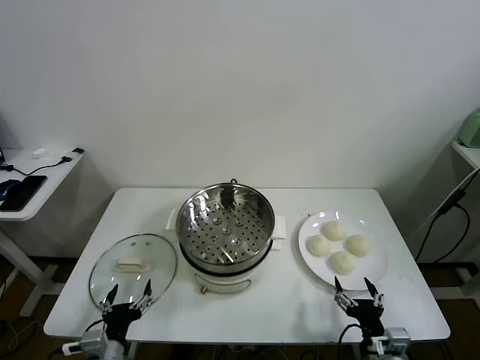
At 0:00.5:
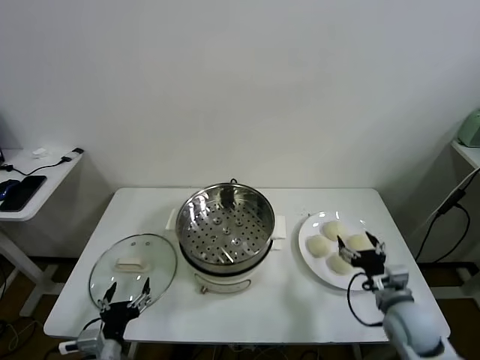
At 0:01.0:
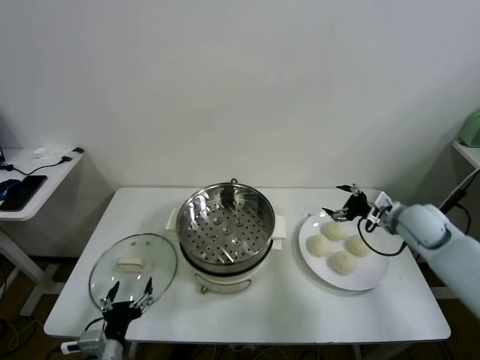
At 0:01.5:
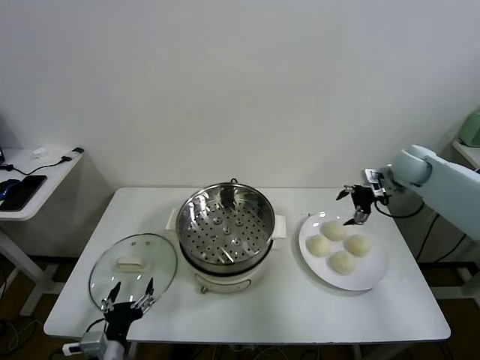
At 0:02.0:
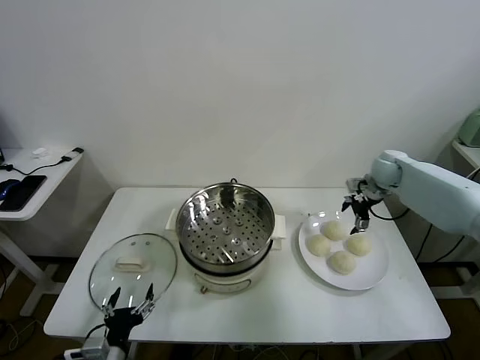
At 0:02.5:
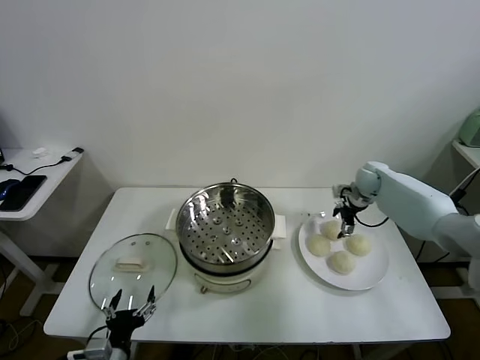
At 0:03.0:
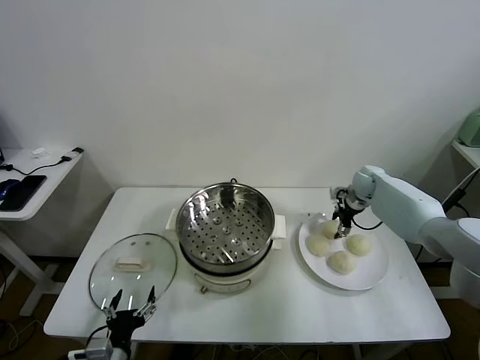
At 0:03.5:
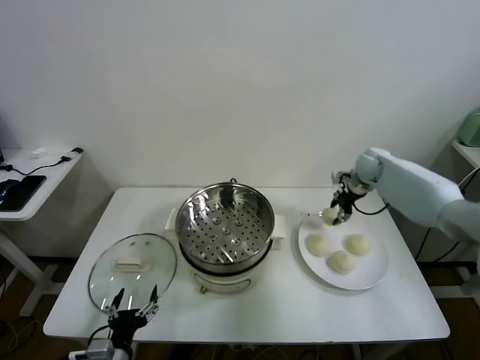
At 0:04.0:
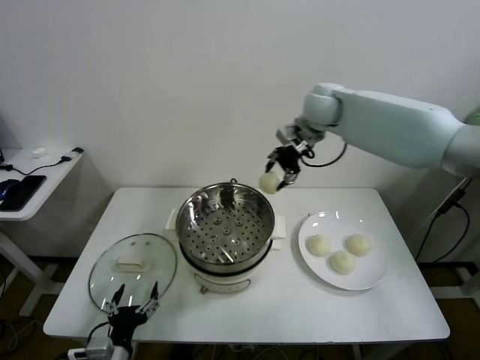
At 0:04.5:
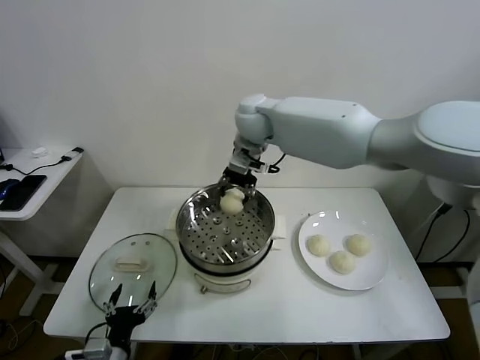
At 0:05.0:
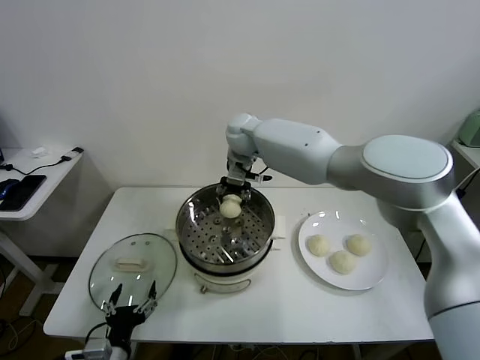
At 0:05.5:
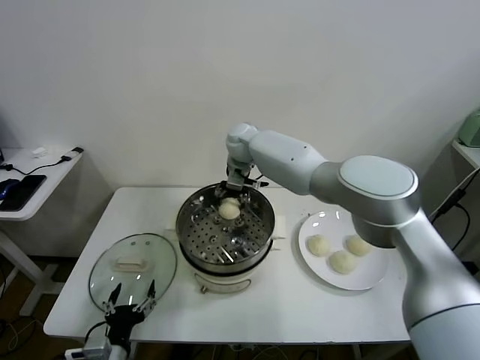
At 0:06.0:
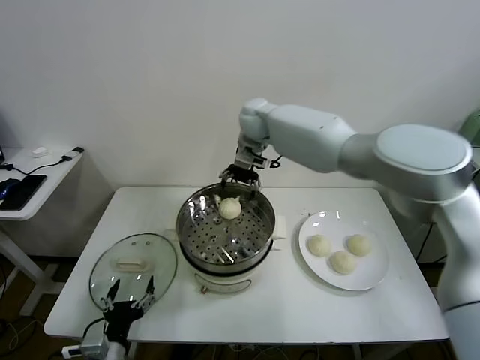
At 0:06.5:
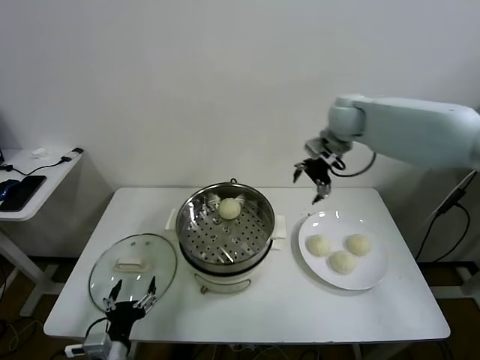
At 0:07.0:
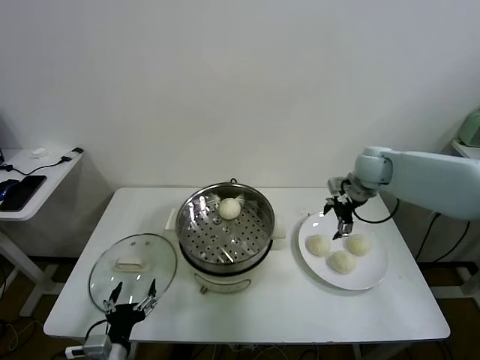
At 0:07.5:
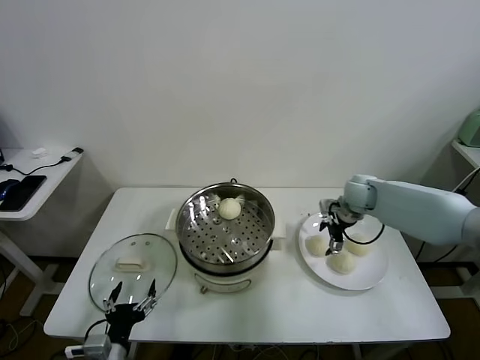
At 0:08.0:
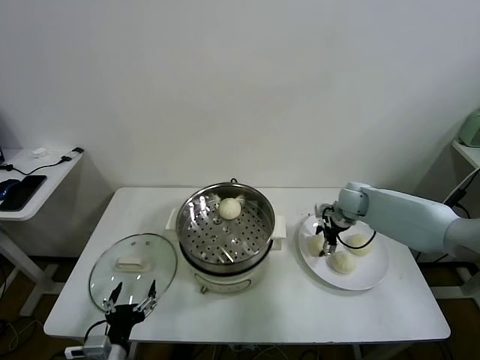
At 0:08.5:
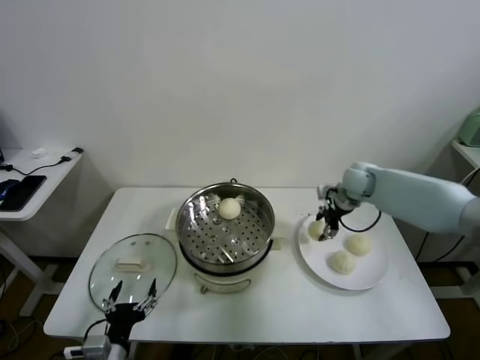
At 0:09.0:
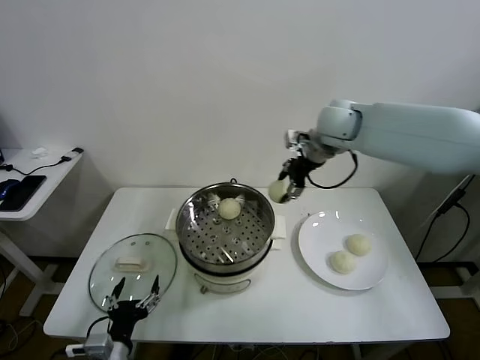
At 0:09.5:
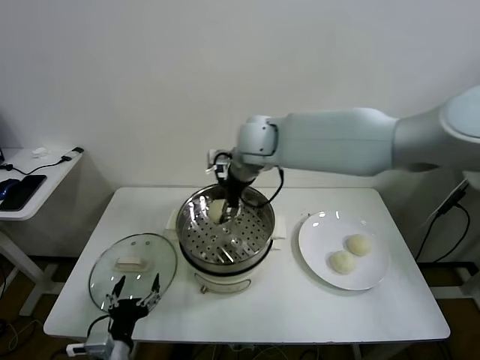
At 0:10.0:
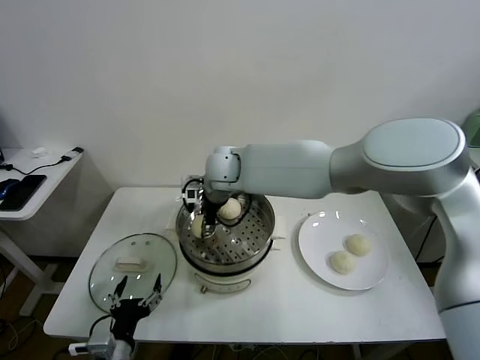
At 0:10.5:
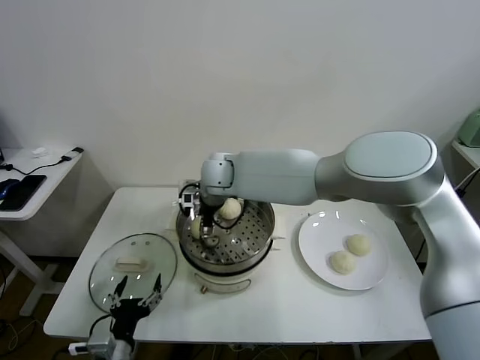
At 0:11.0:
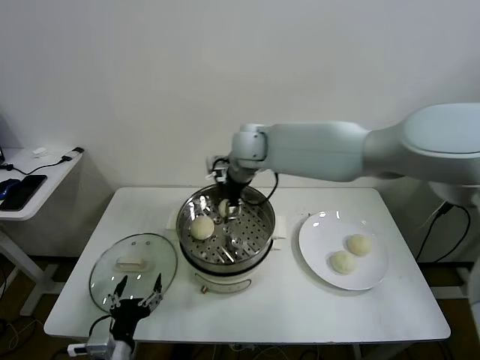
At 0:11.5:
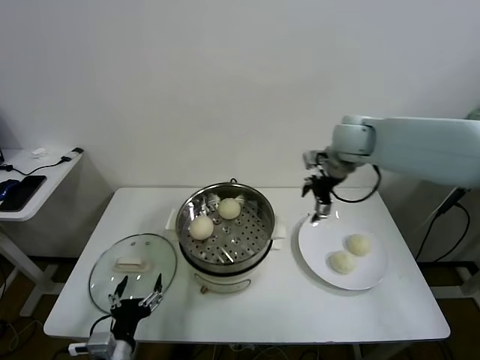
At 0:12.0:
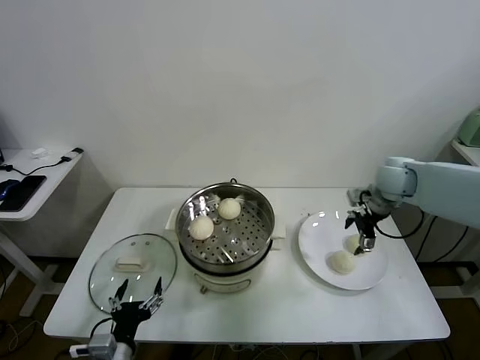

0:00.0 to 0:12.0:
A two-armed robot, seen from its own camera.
Task of the whole recording: take steamed baozi put them in steamer.
Step, 0:00.0 to 0:02.5: Grasp the baozi in the plate with right gripper.
Step, 0:03.0 to 0:05.5: Place the baozi on the steamer with right gripper.
Step, 0:06.0 to 0:08.0: Grasp the baozi in the plate with right gripper.
Step, 0:08.5 to 0:10.5: Place the baozi on the steamer with right gripper.
0:02.0 to 0:04.0: The right gripper shifts about 30 cm to the left and upward, and closes.
0:04.0 to 0:06.0: The right gripper shifts some 5 cm to the left, and opens up.
0:06.0 to 0:08.0: The right gripper is displaced to the right and downward by about 35 cm.
0:08.0 to 0:10.0: The right gripper moves to the left and upward, some 40 cm.
0:10.0 to 0:12.0: The right gripper moves to the right, some 40 cm, and opens up.

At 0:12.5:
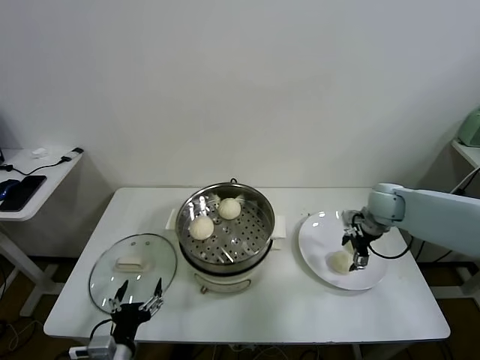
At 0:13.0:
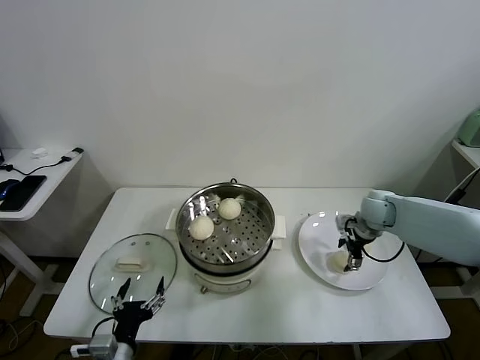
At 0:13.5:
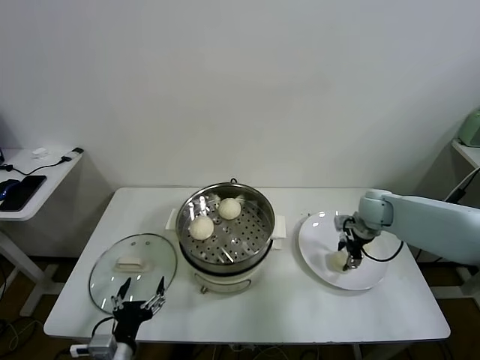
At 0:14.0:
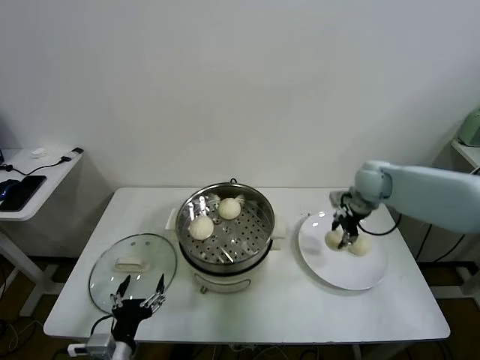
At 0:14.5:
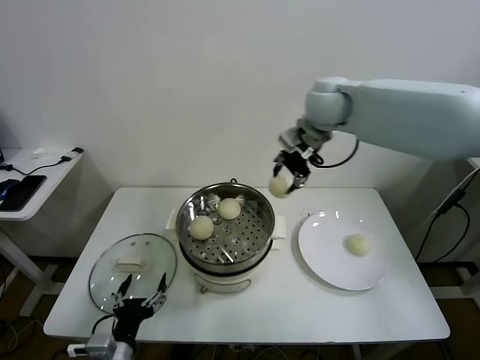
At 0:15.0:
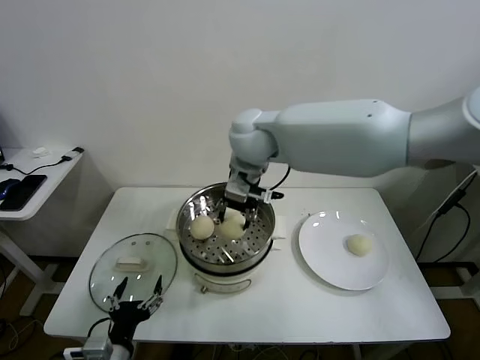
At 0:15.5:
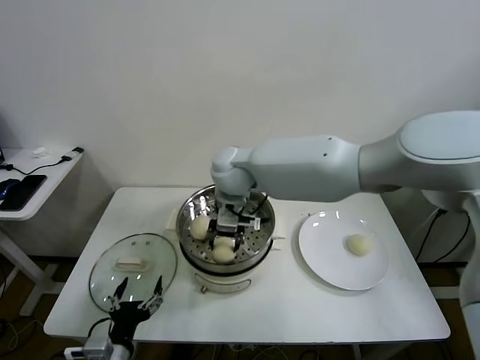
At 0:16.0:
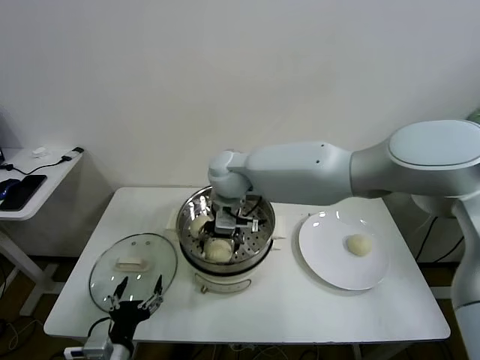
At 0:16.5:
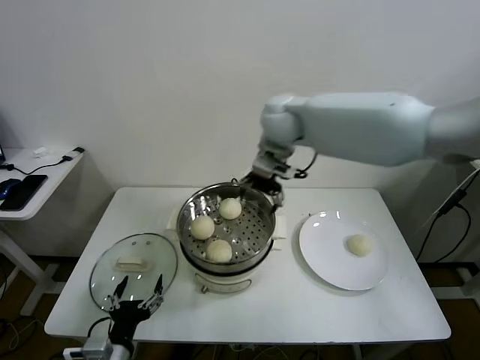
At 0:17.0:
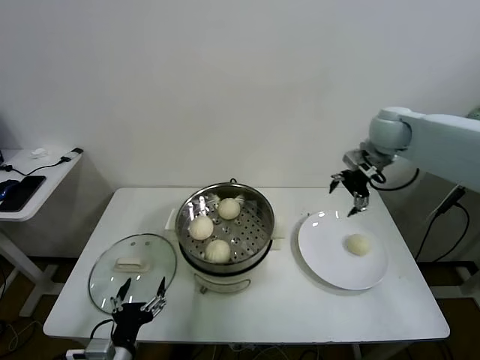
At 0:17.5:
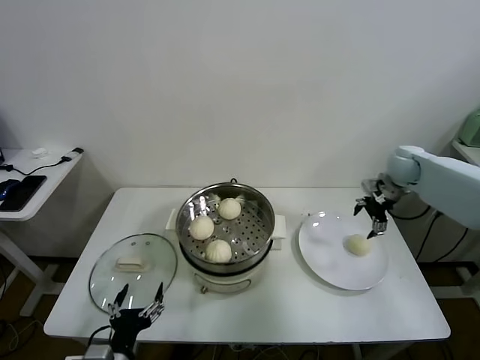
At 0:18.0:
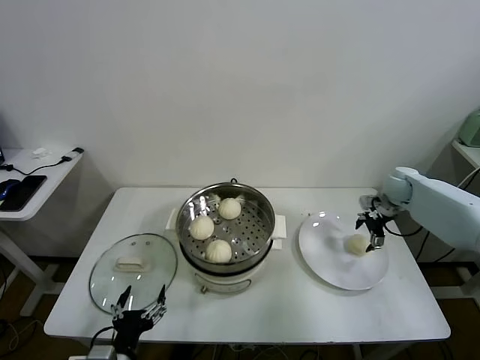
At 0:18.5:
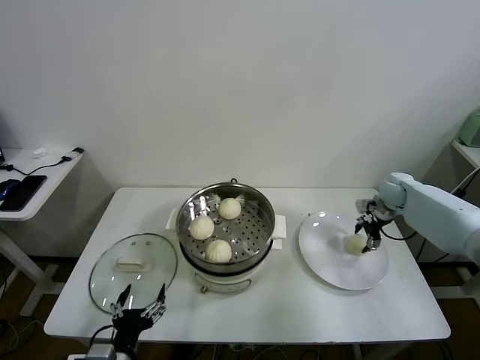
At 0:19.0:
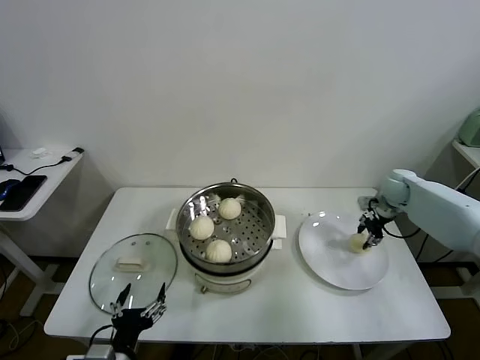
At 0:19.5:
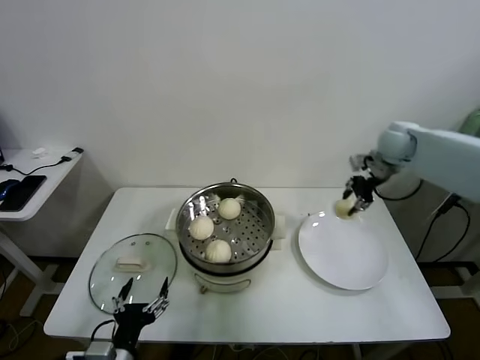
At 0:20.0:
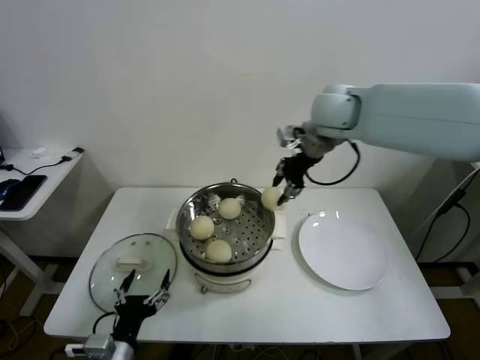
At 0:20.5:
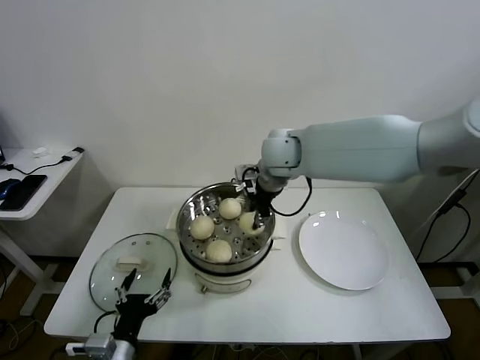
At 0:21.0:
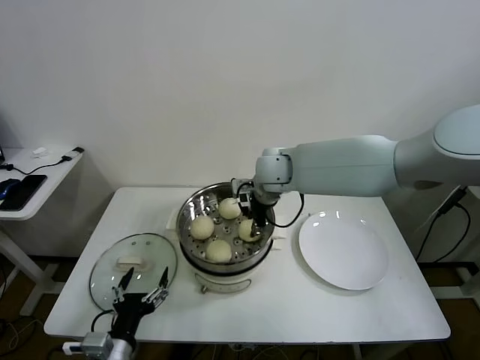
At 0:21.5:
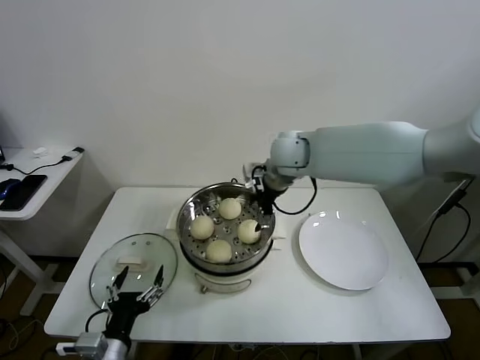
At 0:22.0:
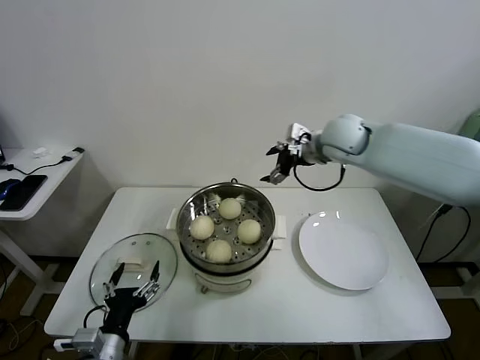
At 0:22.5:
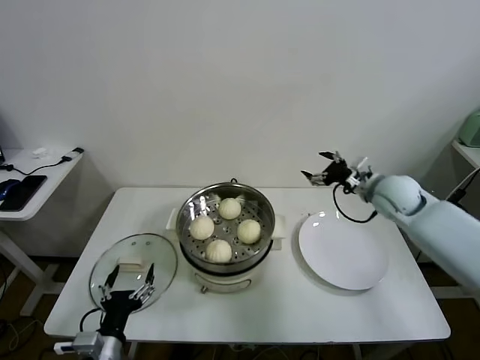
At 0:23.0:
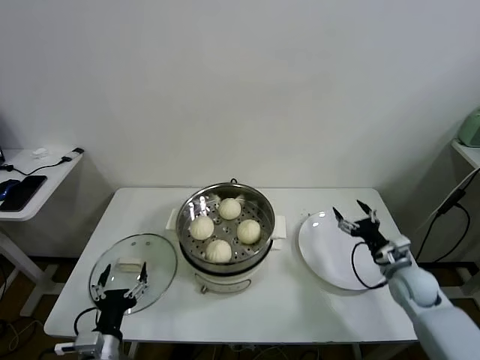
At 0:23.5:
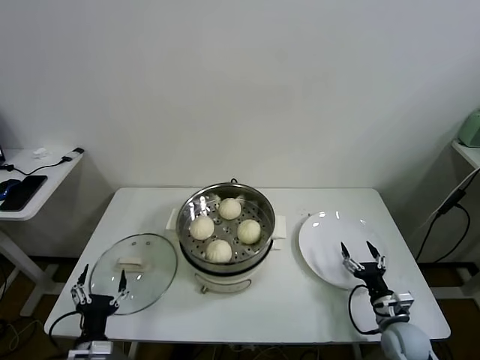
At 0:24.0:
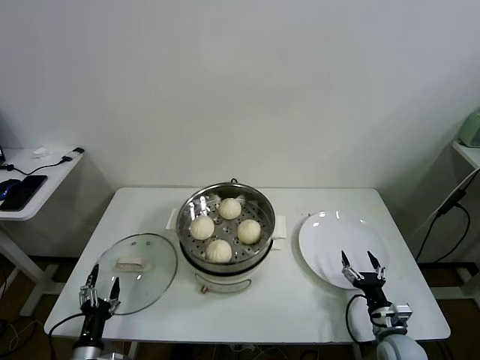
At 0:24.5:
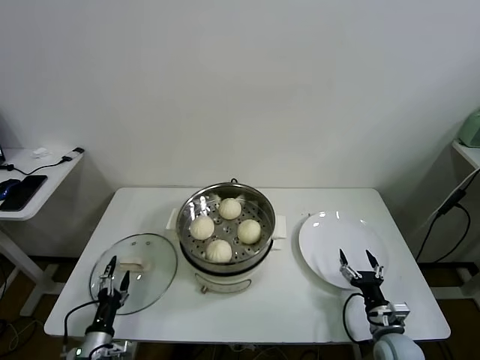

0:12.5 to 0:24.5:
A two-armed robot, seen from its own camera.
Task of the whole recording: take steamed baozi put them in steamer.
Step, 0:13.5 to 0:16.0: Place the baozi on the steamer with right gripper.
Step, 0:16.5 to 0:18.5: Grasp the baozi in the plate with right gripper.
Step, 0:19.0 to 0:21.0: Place the baozi on the steamer with right gripper.
0:12.5 to 0:14.5: The right gripper goes roughly 35 cm upward and to the left, and closes up.
0:14.5 to 0:16.5: The right gripper moves roughly 15 cm to the left and comes back, and opens its fingers.
0:16.5 to 0:18.5: The right gripper heads to the right and downward, covering some 40 cm, and closes its fingers.
0:18.5 to 0:20.5: The right gripper goes about 40 cm to the left and upward, and closes up.
0:20.5 to 0:22.5: The right gripper shifts about 30 cm to the right and downward, and opens.
0:22.5 to 0:24.5: The left gripper is displaced downward and to the left by roughly 15 cm, while the right gripper goes roughly 35 cm downward and backward.

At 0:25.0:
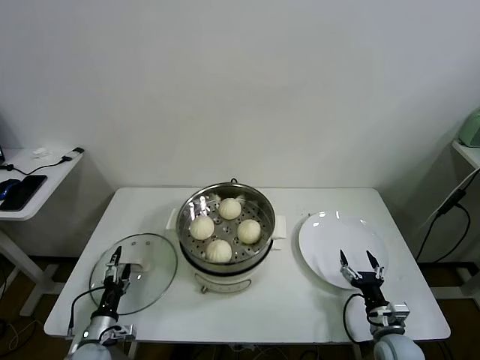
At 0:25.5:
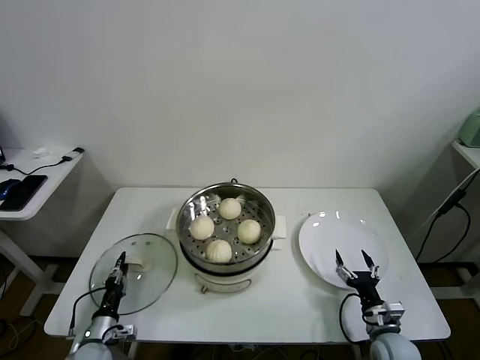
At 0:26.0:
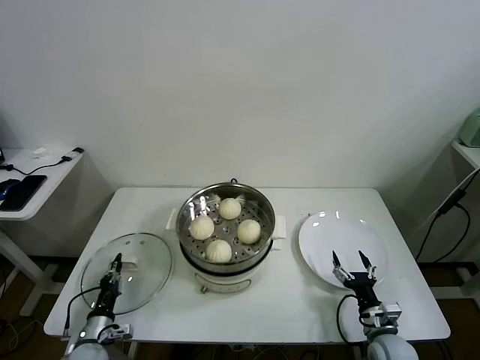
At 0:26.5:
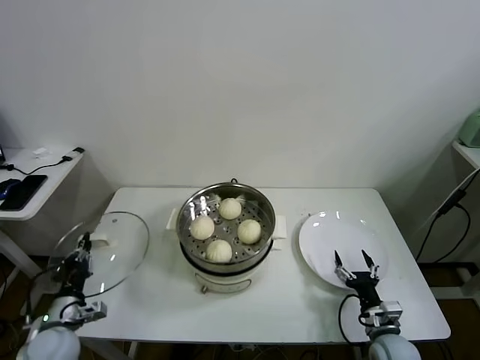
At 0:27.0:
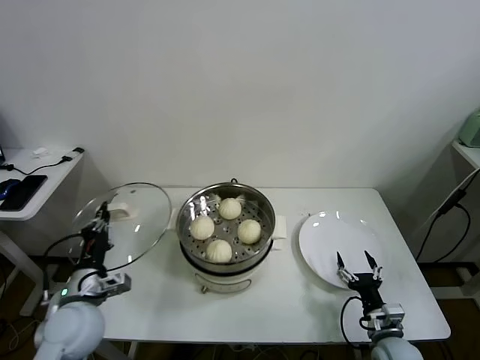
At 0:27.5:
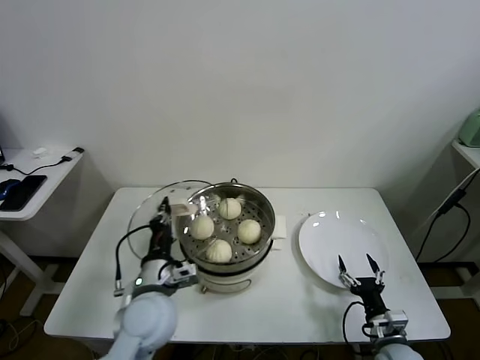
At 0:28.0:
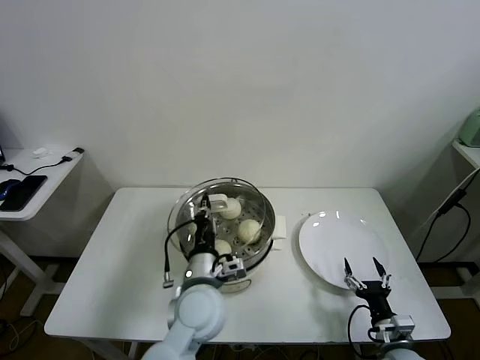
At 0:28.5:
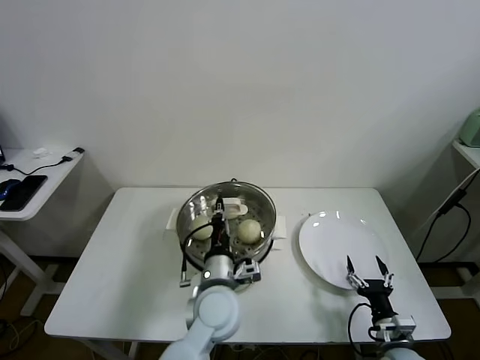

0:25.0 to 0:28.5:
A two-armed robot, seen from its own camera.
Task of the whole recording: take steamed baozi put them in steamer.
0:25.0 to 0:27.0: The left gripper moves upward, some 20 cm, and closes.
0:27.0 to 0:28.5: The left gripper moves to the right, some 25 cm.
